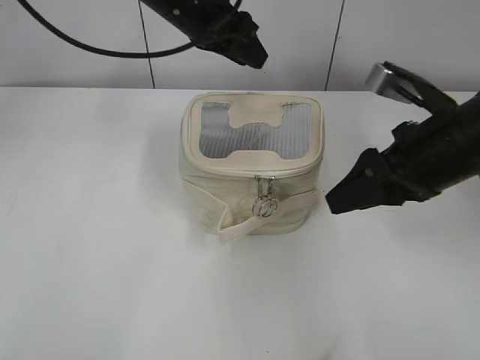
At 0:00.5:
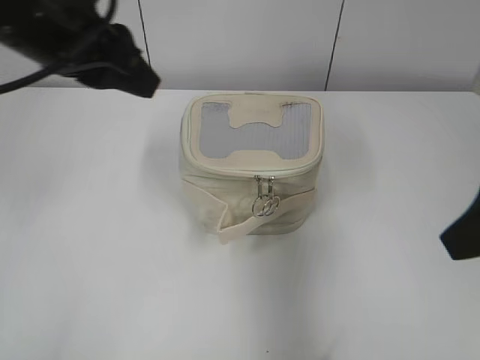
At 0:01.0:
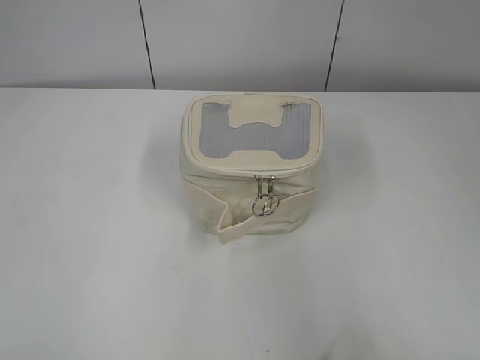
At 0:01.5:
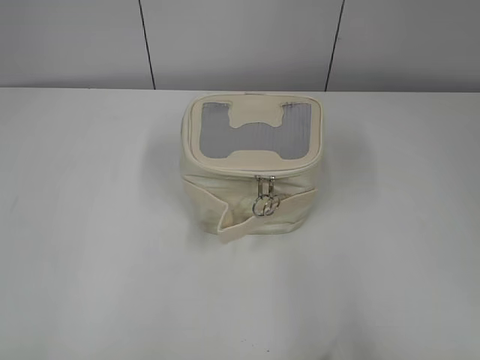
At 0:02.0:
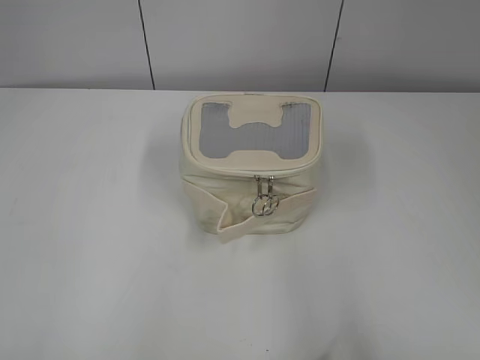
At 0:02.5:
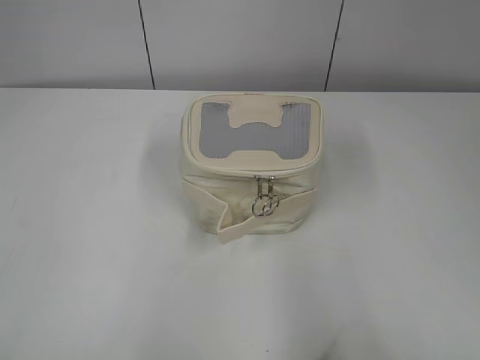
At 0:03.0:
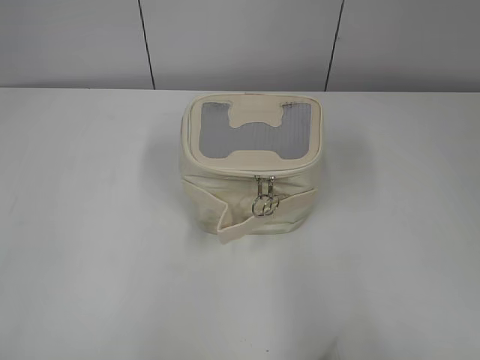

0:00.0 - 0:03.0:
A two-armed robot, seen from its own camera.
0:00.0 - 0:01.5: The left gripper heads backward and to the left, covering about 50 cm; the right gripper moves backward, about 30 cm.

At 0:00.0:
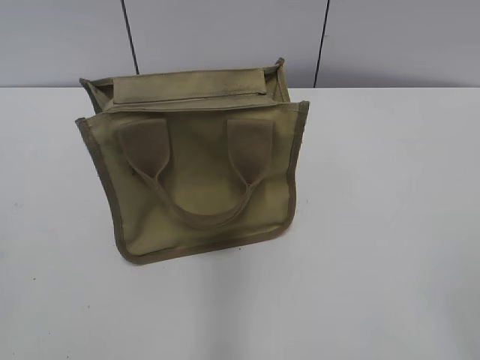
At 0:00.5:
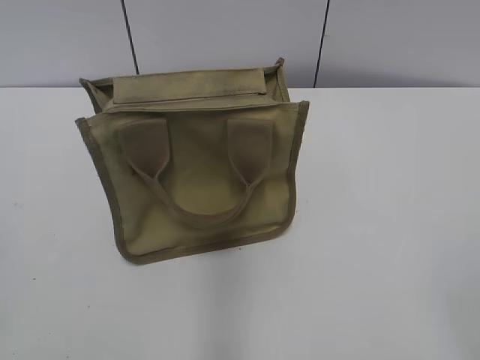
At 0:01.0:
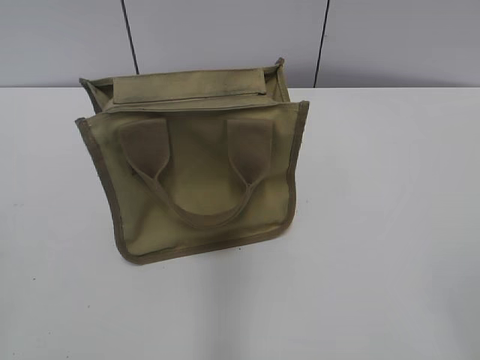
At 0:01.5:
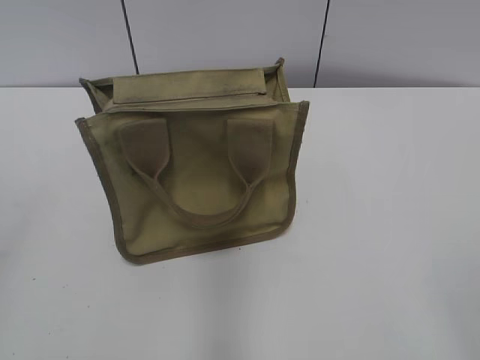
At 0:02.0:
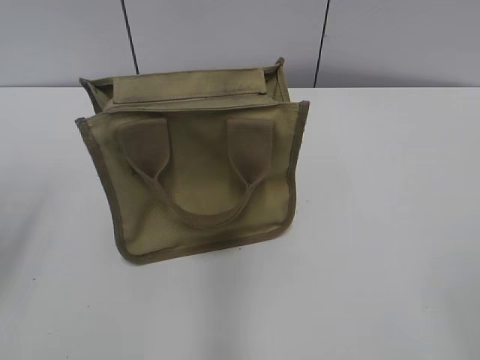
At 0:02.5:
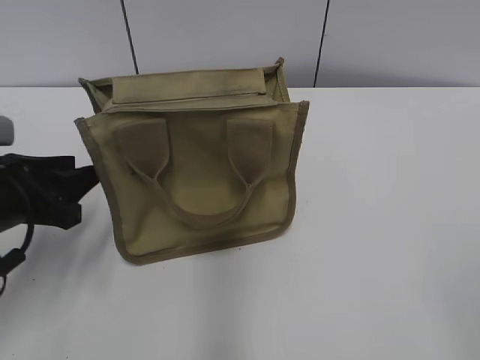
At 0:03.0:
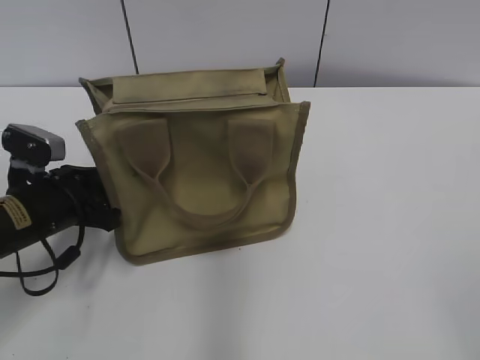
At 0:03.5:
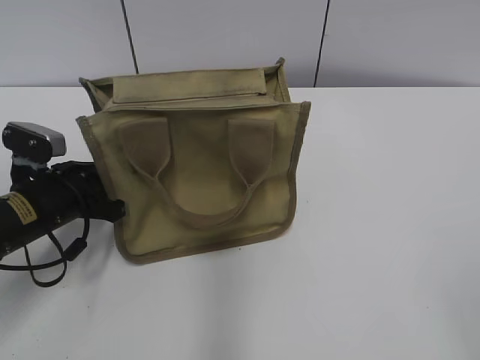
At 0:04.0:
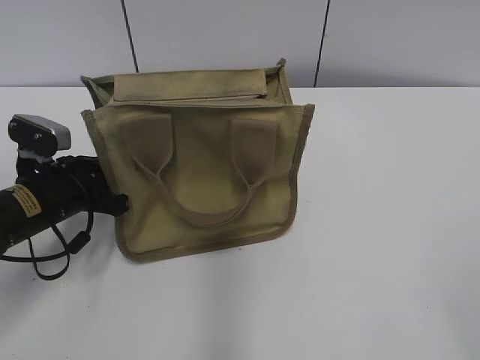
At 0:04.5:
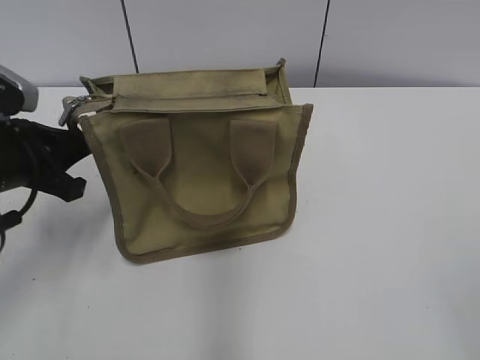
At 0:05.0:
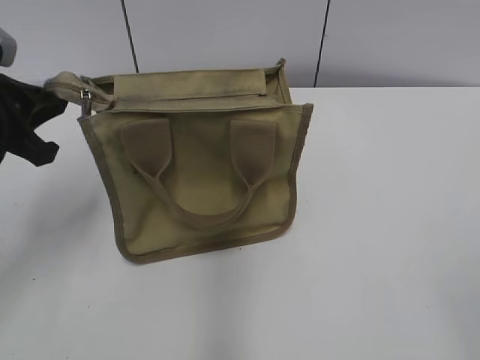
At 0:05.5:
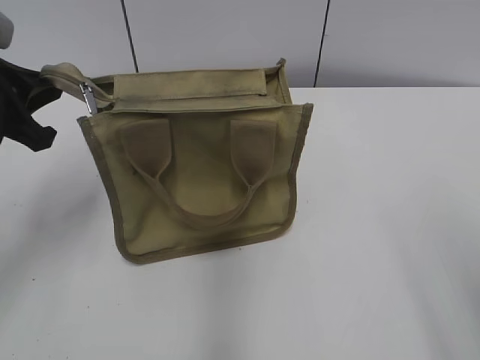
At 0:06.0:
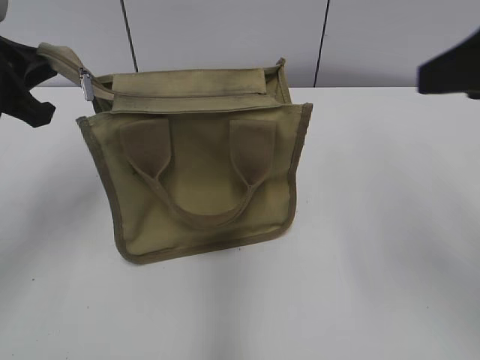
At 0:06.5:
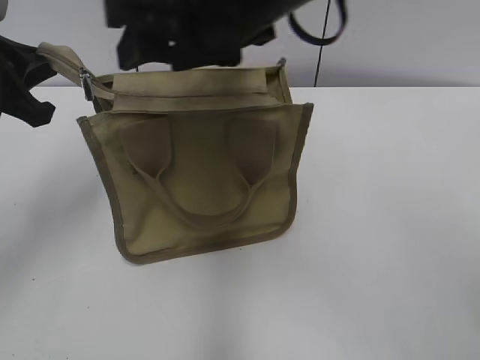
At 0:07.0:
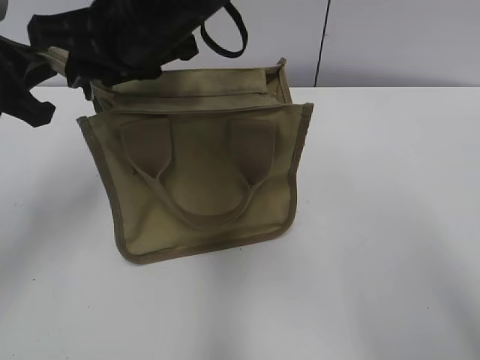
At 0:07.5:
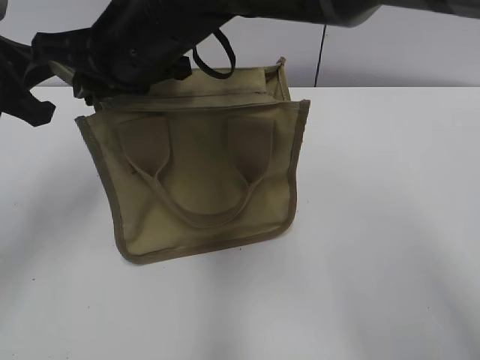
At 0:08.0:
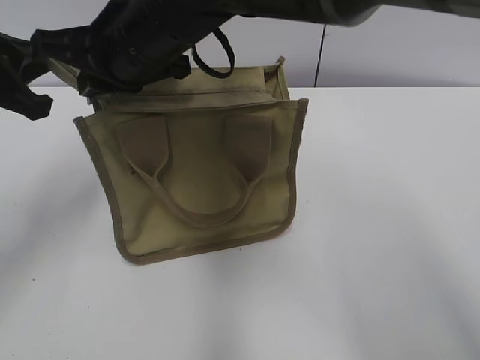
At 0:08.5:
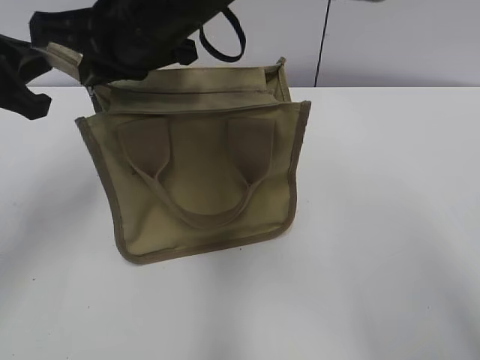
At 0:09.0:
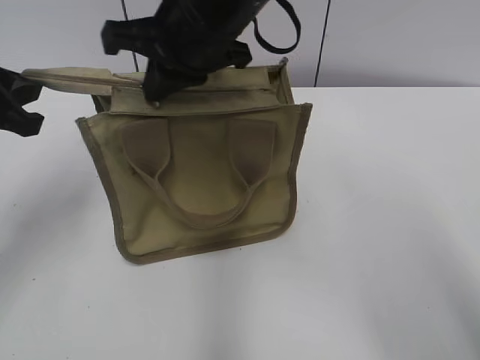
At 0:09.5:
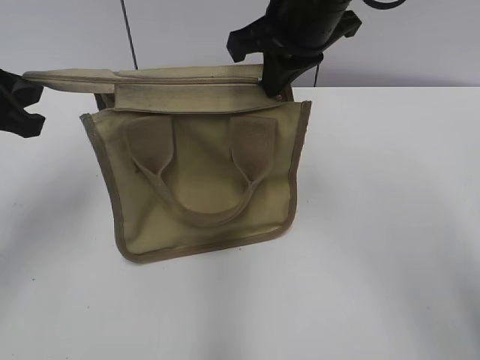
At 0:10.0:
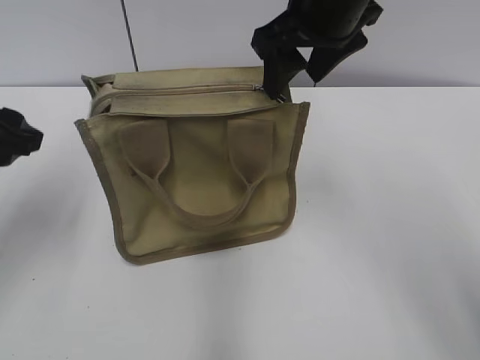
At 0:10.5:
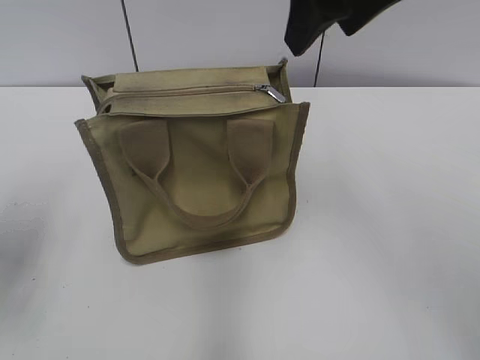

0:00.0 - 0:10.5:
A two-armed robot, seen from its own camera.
Step, 0:00.0 - 0:09.5: Zip up the bag with your right hand.
0:02.0 - 0:04.0: The left gripper shifts some 25 cm downward, forward and to the right, and closes up.
0:04.0 - 0:06.5: The right gripper goes about 35 cm forward and to the left, while the left gripper heads upward, covering some 15 cm.
0:06.5 - 0:08.5: The right gripper travels to the left by some 10 cm, and closes.
0:08.5 - 0:10.5: The right gripper moves to the right and upward, roughly 20 cm, and opens its fingers. Meanwhile the left gripper shifts roughly 10 cm backward and downward, and opens its fingers.

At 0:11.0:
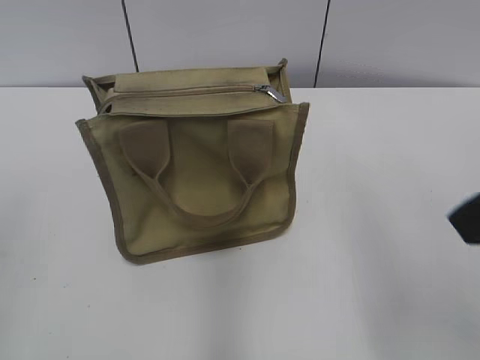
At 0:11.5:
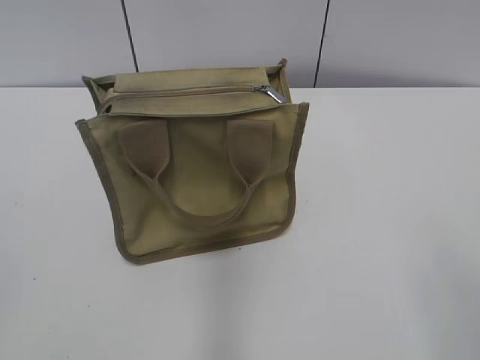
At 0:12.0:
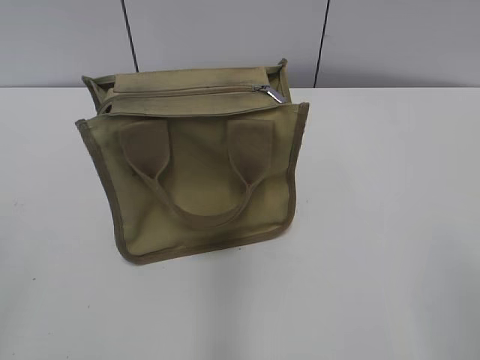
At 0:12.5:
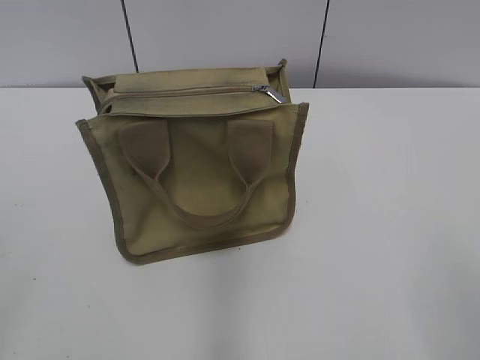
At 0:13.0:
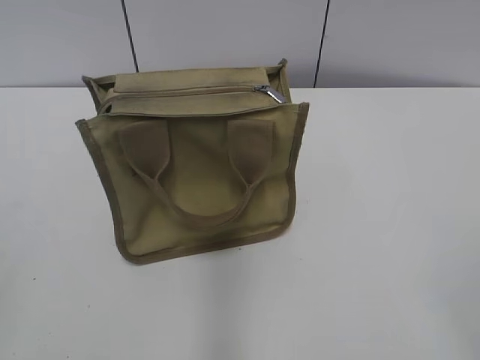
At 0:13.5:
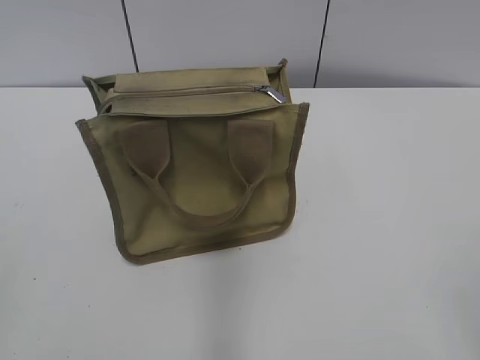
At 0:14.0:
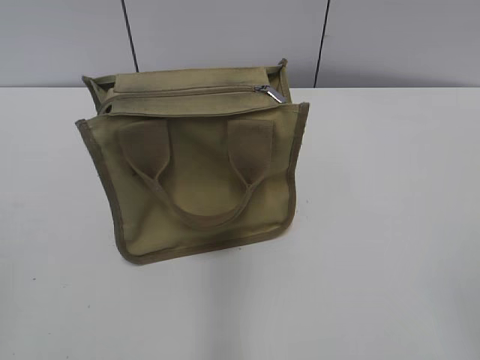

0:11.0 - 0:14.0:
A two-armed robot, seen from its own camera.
0:11.0 - 0:12.5: The right gripper heads backward, to the right and downward, covering some 20 cm.

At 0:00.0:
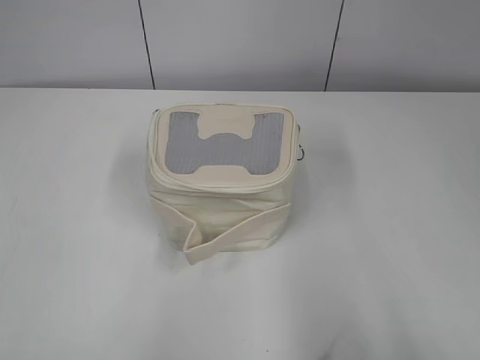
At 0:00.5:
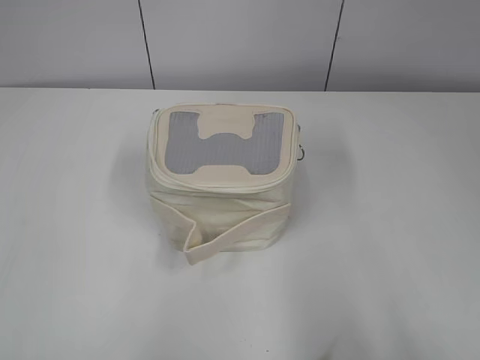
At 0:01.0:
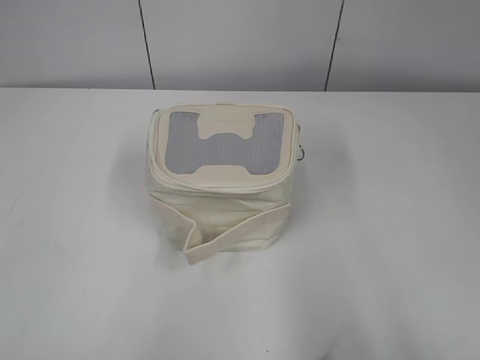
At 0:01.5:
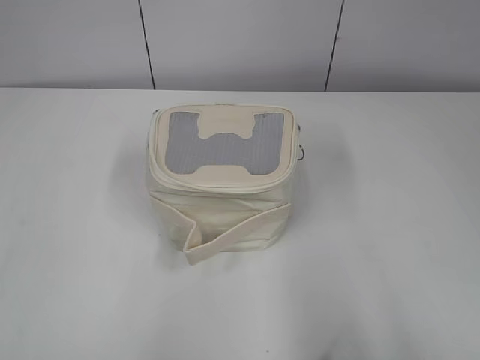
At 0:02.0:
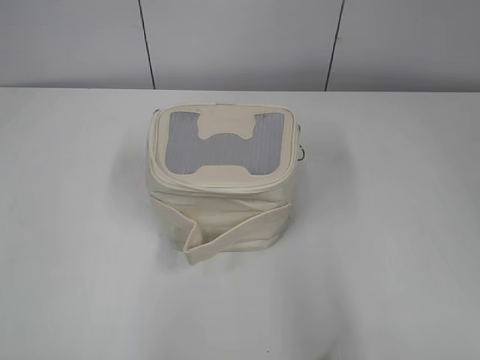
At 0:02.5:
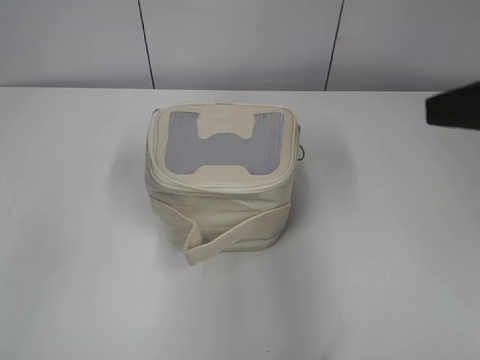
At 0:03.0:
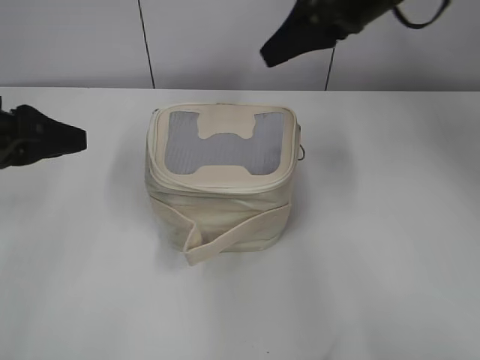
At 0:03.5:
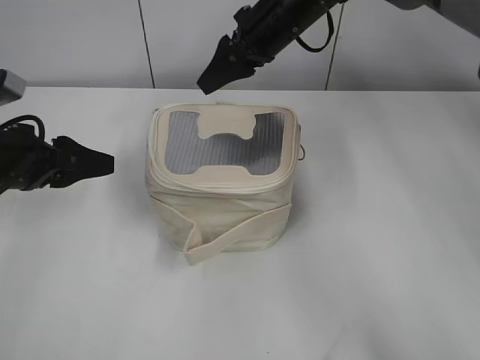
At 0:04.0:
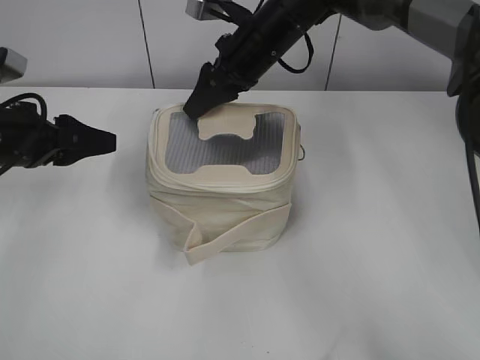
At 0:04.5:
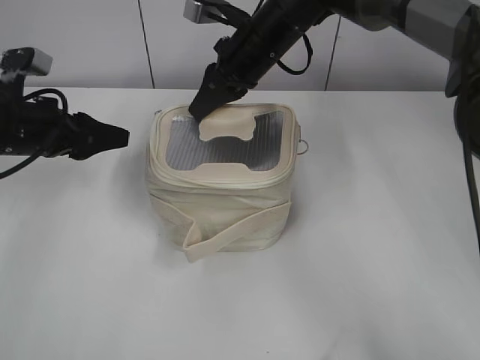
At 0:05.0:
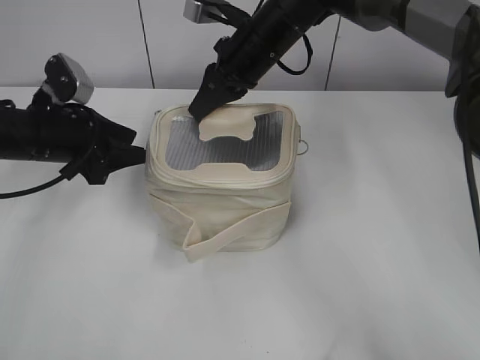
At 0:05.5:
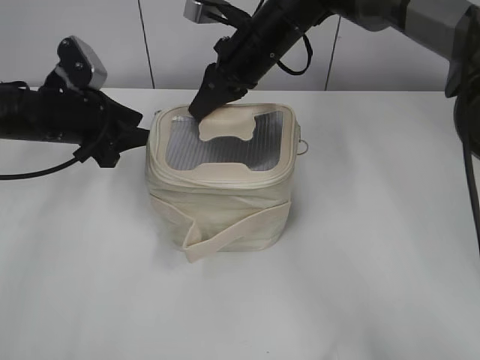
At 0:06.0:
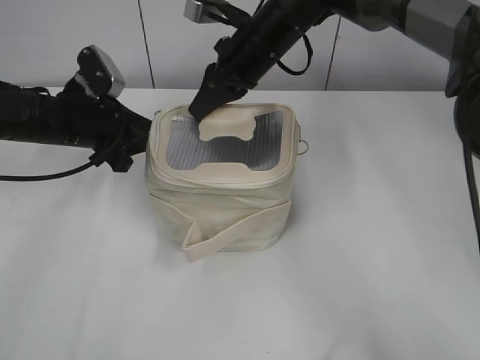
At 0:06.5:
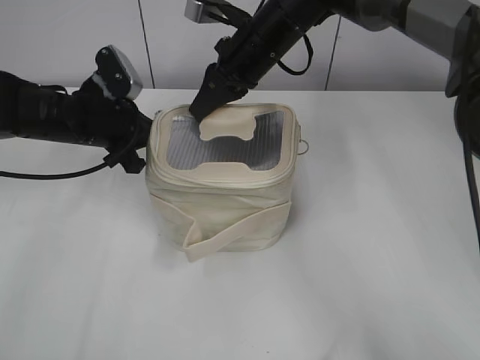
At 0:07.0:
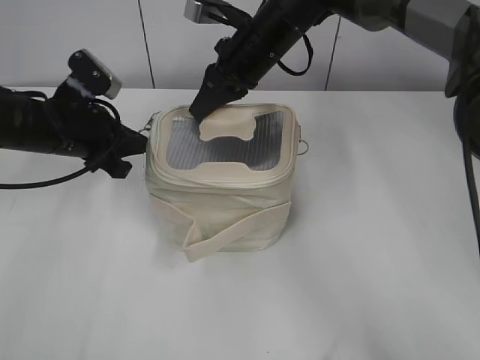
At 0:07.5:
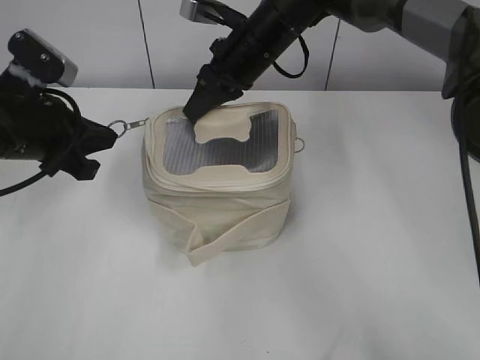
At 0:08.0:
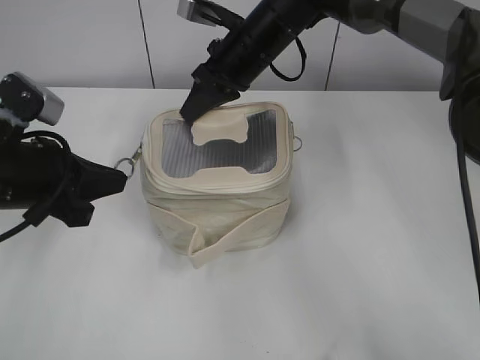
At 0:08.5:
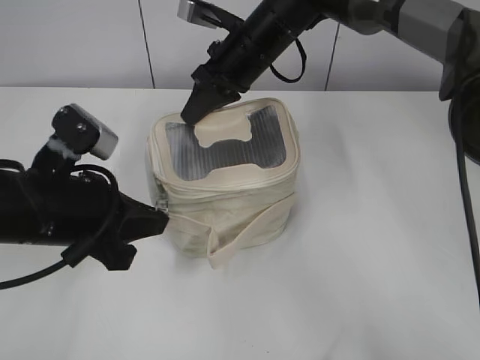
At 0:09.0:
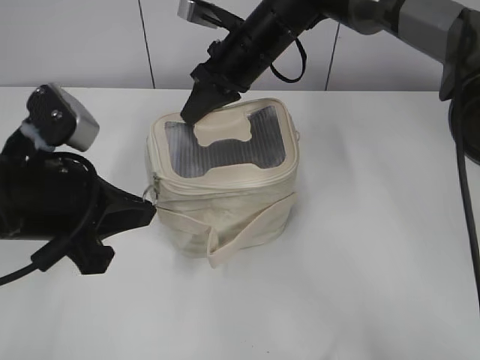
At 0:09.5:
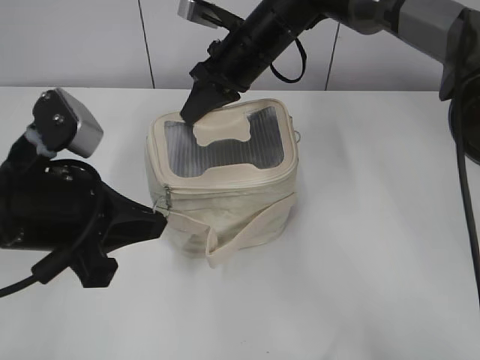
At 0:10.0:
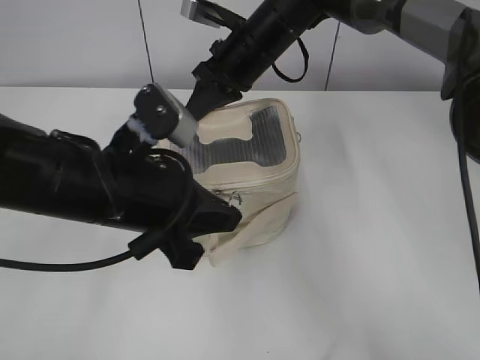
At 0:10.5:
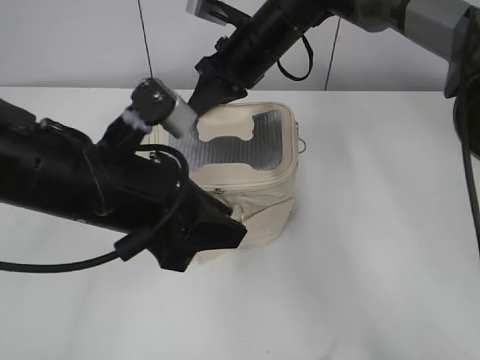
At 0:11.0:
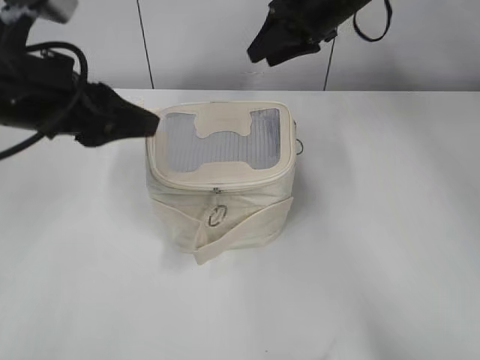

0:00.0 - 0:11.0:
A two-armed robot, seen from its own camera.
Step, 0:00.0 - 0:10.0: Zip up the bag with your left hand.
0:02.0 - 0:03.5: The left gripper heads forward and downward, covering some 30 cm, while the right gripper shifts about 50 cm forward and to the left.
0:03.5 - 0:05.5: The left gripper goes some 10 cm forward; the right gripper closes its fingers.
0:05.5 - 0:07.5: The left gripper moves backward, roughly 5 cm, and closes up.
0:07.5 - 0:09.0: The left gripper moves backward, about 10 cm.
0:09.0 - 0:11.0: The left gripper shifts some 5 cm upward, and opens. The right gripper shifts roughly 10 cm to the right, and opens up.
